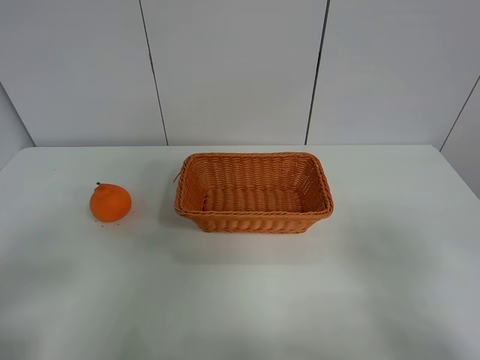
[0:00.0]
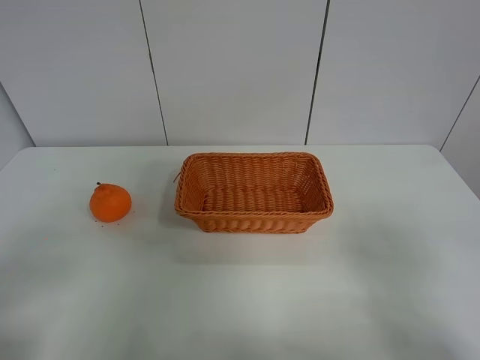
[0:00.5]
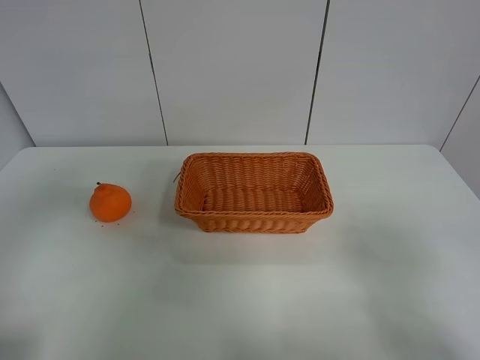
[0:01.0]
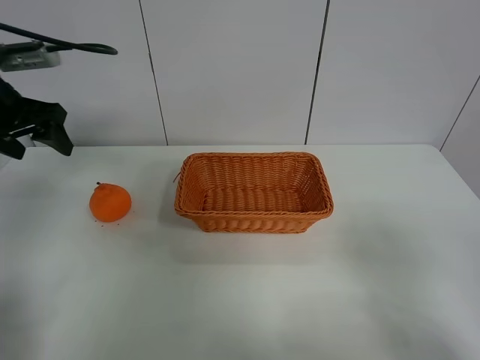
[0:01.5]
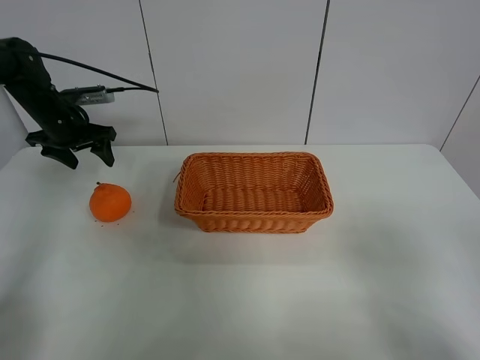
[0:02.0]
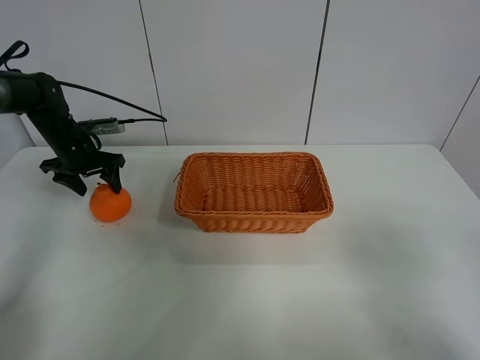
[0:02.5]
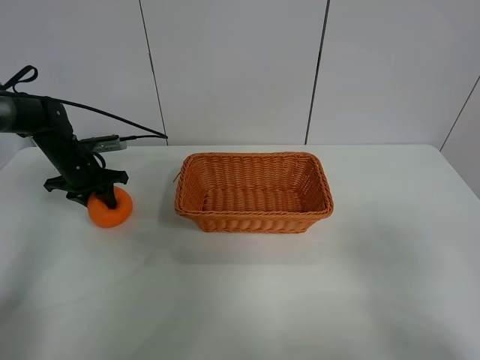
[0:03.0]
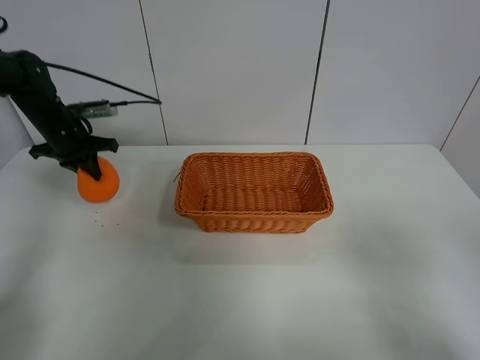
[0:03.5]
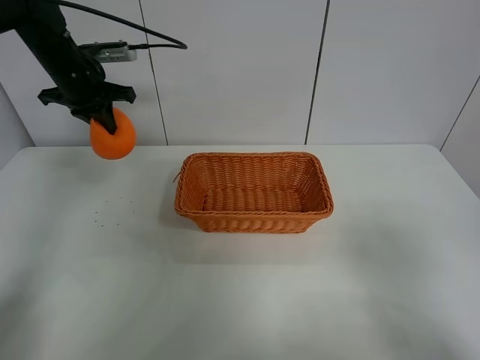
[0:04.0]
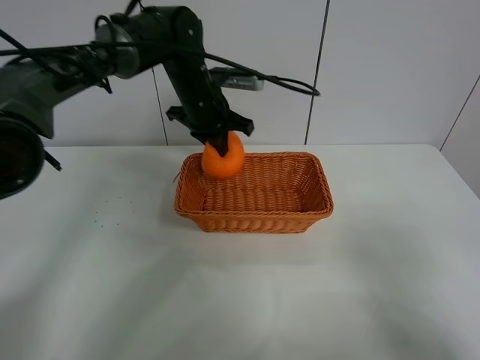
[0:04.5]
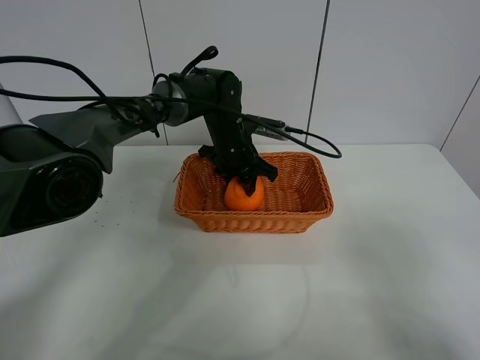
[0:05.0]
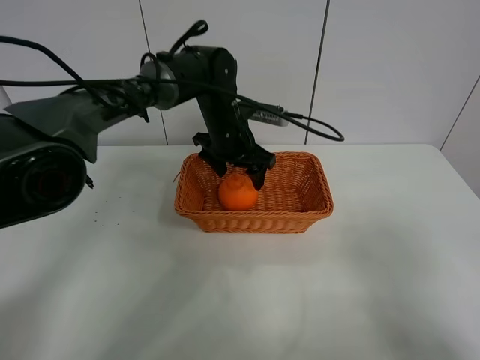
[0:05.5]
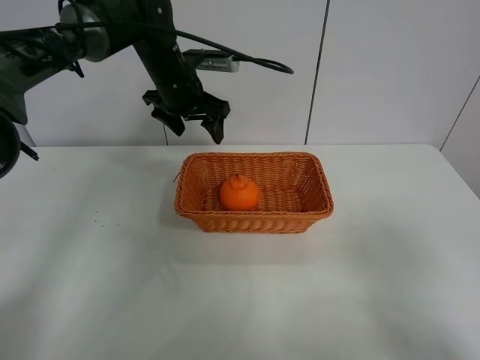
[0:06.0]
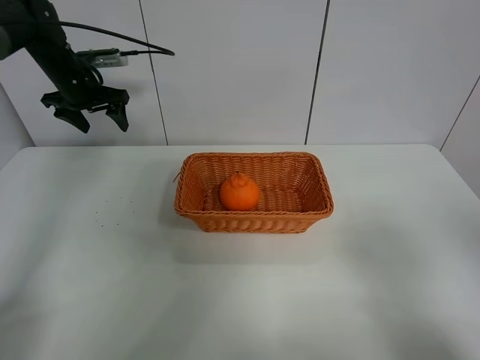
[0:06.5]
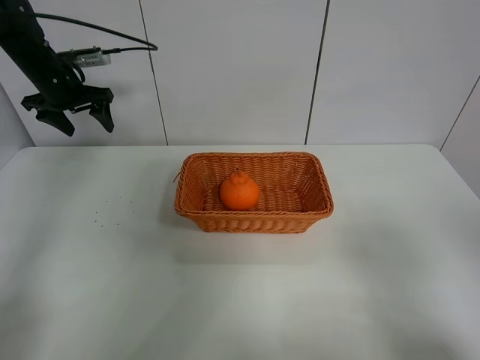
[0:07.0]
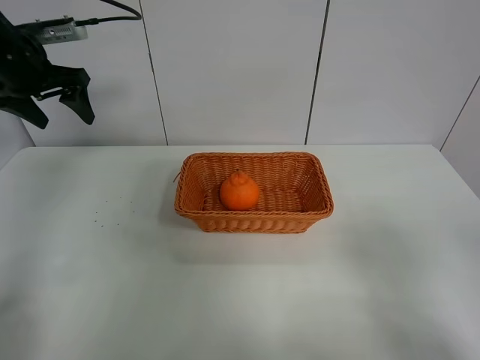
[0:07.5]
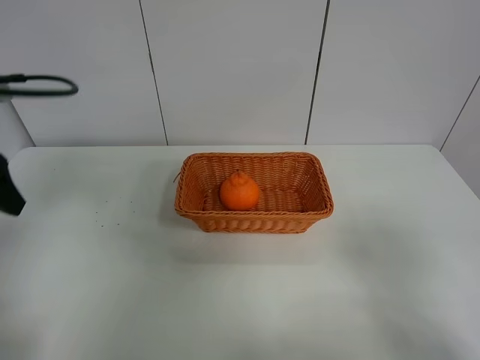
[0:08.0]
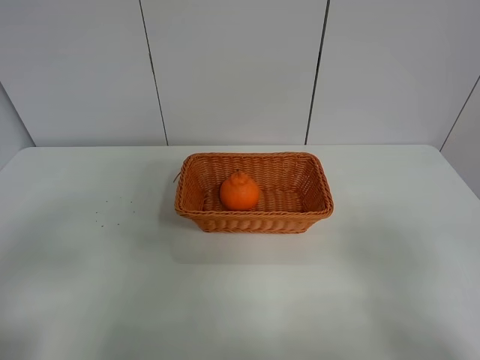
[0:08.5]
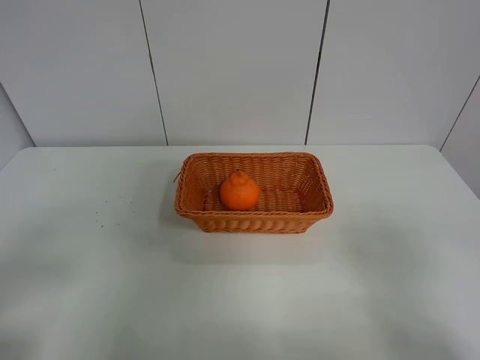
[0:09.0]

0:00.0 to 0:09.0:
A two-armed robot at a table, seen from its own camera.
Task of the whole recording: left gripper grabs oranges and puts them in the basket.
Step, 0:00.0 to 0:03.0: Grasp the orange with left gripper.
Step, 0:03.5 to 0:06.0: Place the orange in the basket with left gripper.
0:00.0 to 0:02.0: The left gripper heads forward, covering approximately 50 cm.
0:02.0 to 0:04.5: The left gripper goes about 25 cm to the right, and closes.
0:04.5 to 0:07.0: The left gripper shifts some 25 cm to the left, and opens up.
0:07.0 to 0:09.0: The left gripper shifts about 50 cm backward.

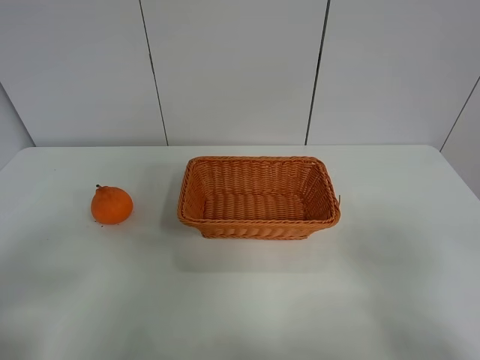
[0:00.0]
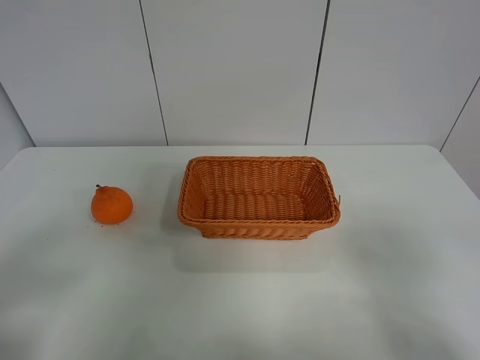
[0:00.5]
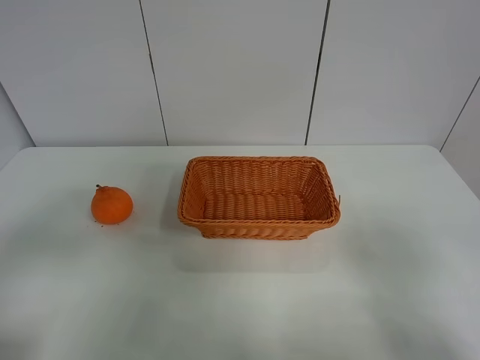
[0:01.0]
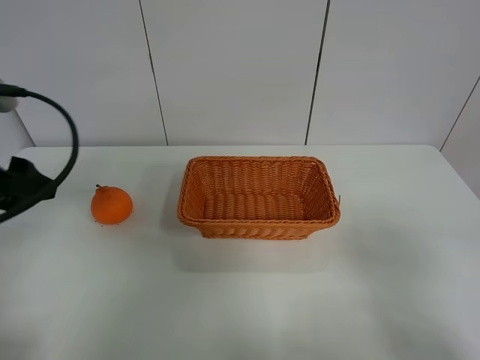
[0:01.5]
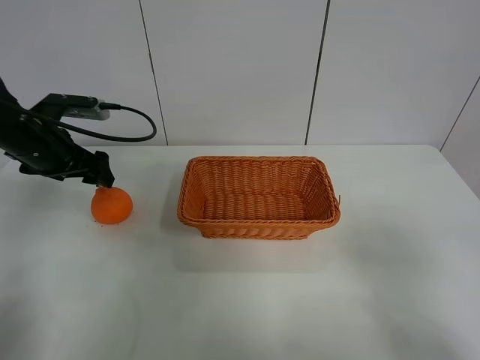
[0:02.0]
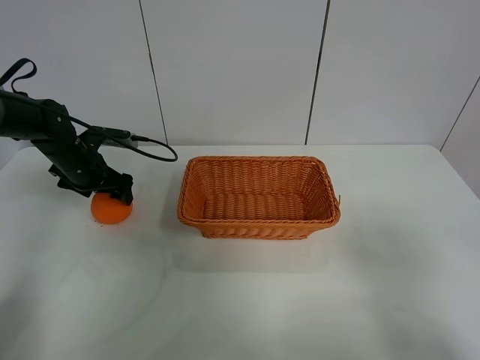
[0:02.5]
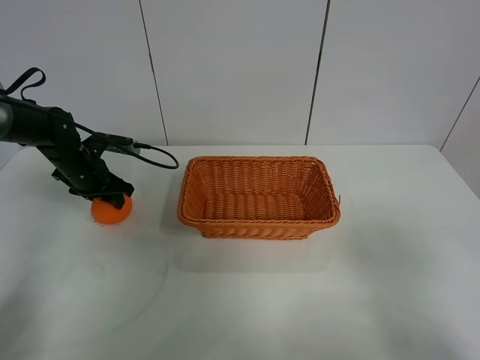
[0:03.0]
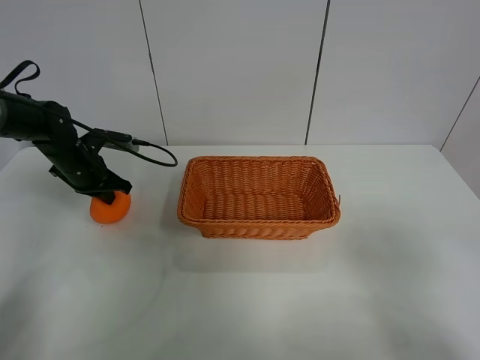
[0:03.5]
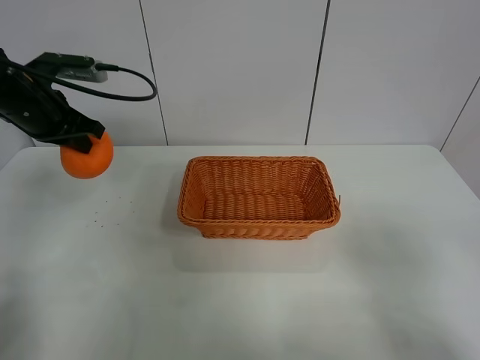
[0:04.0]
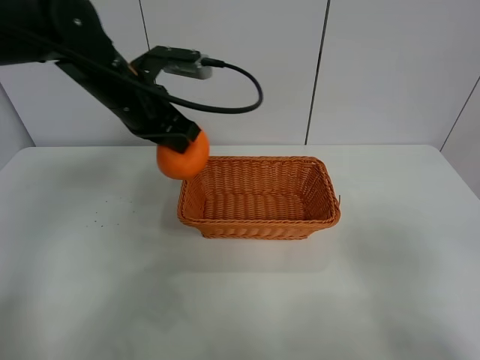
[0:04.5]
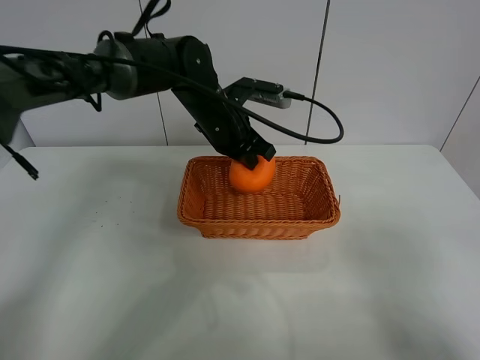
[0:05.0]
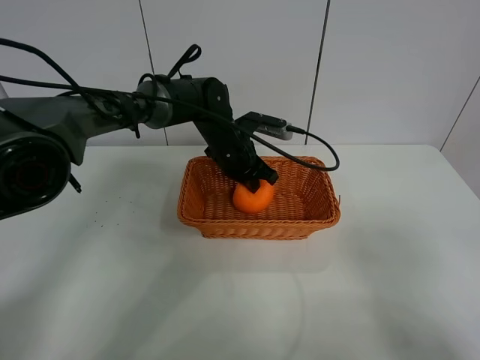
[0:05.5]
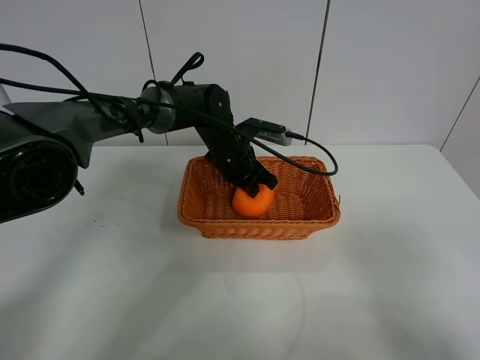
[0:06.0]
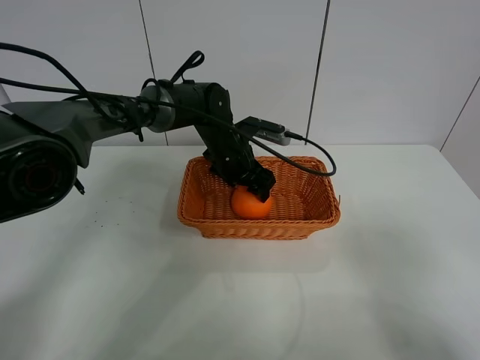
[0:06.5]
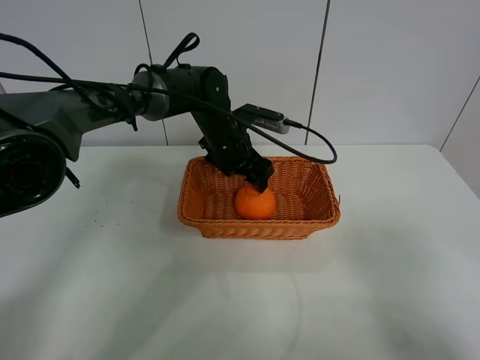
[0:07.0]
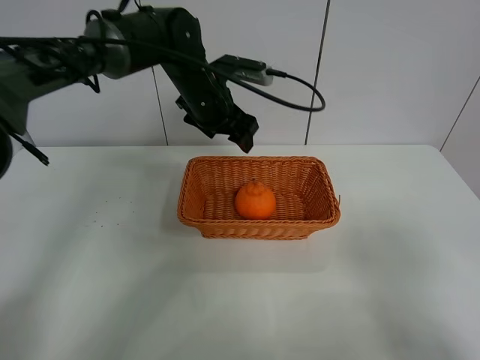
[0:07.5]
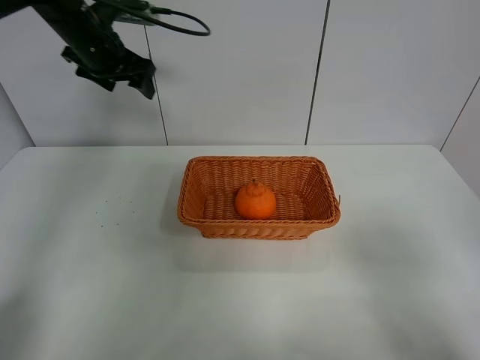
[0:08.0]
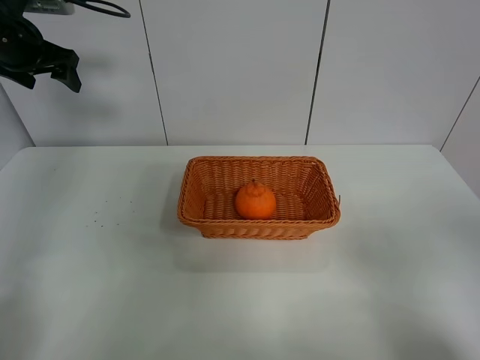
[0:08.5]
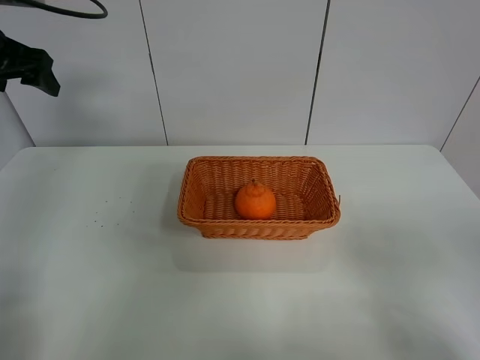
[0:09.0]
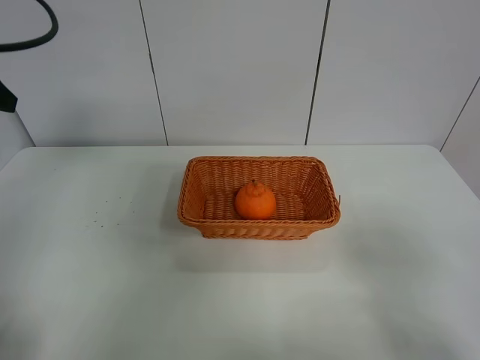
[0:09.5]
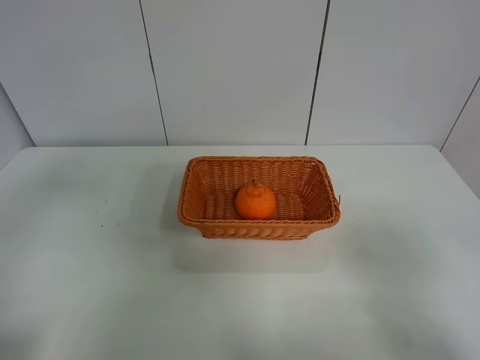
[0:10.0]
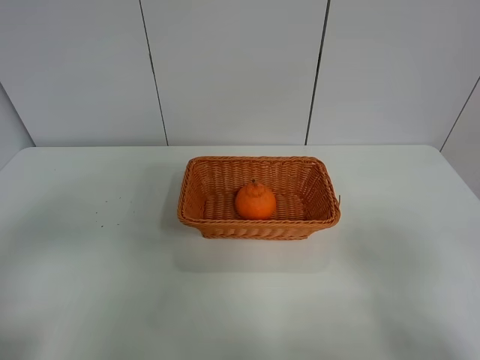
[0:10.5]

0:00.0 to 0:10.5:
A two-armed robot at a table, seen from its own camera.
Task of the whole recording: left gripper grabs oranges and puts them in the basket.
Step, 0:00.0 to 0:03.0: Grasp the orange with left gripper.
Step, 0:03.5 to 0:07.5: Place the orange in the basket with left gripper.
0:00.0 to 0:02.0: The left gripper shifts some 35 cm forward.
0:02.0 to 0:04.0: The left gripper goes about 5 cm upward, and closes its fingers.
0:04.0 to 0:06.5: The left gripper heads to the right and downward, covering some 30 cm, and opens up.
0:06.5 to 0:08.5: The left gripper shifts roughly 35 cm to the left and upward.
0:08.5 to 0:10.5: The left gripper is displaced backward by roughly 40 cm.

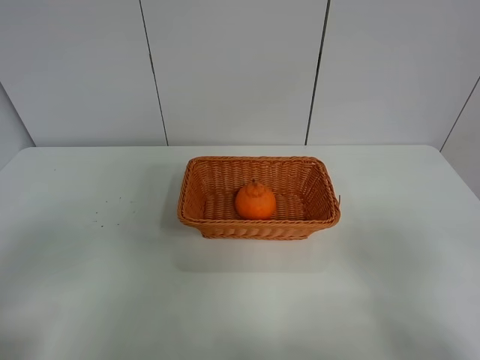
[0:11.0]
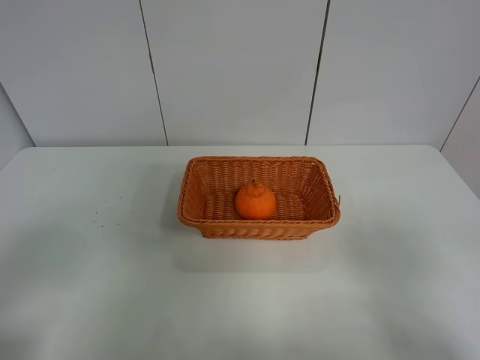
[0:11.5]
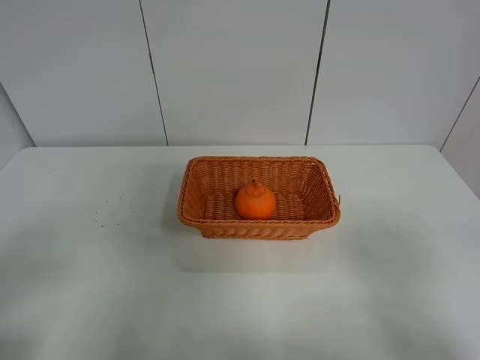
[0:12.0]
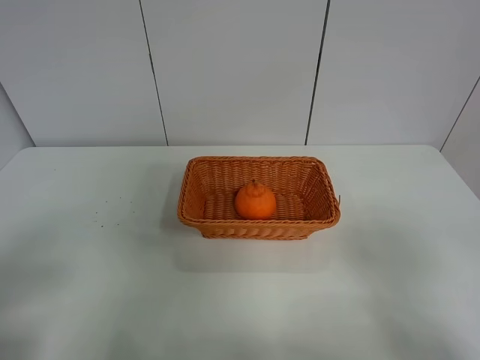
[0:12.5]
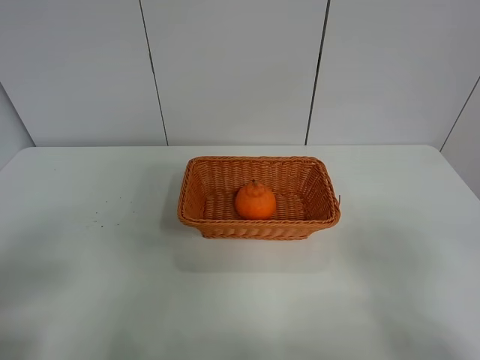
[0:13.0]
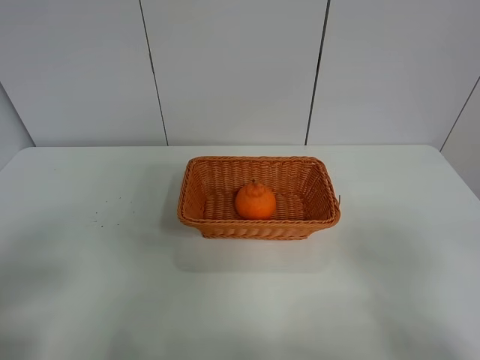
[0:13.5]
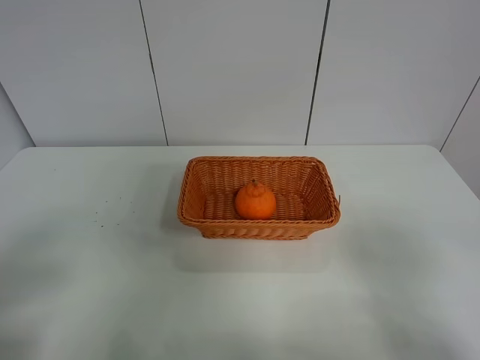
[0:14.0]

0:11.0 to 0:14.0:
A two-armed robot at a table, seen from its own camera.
Task of the whole recording: left gripper grabs oranges and puts them in the basket.
0:12.5 to 0:14.0: Both grippers stay about where they are.

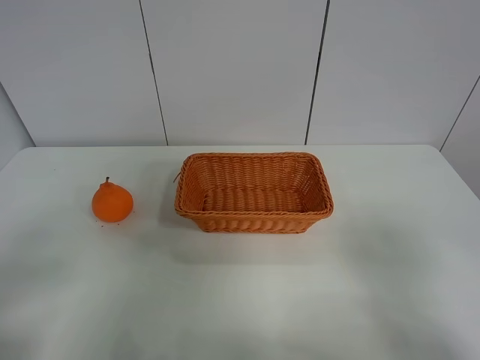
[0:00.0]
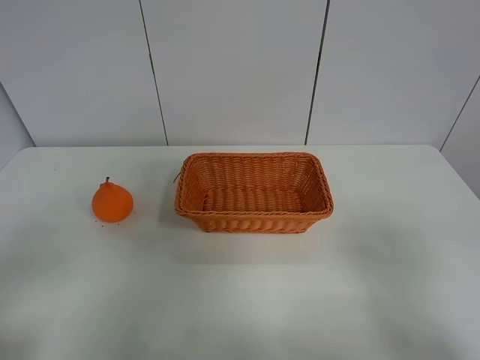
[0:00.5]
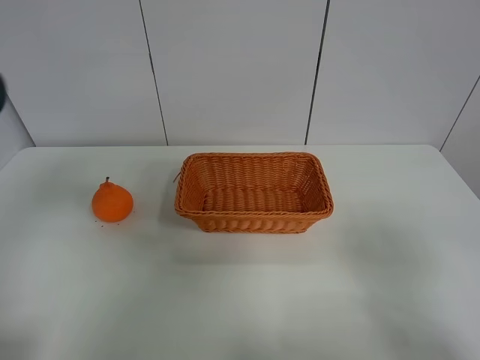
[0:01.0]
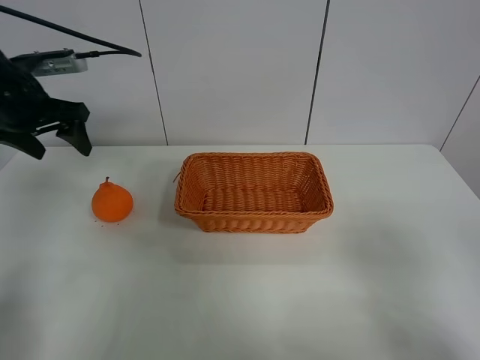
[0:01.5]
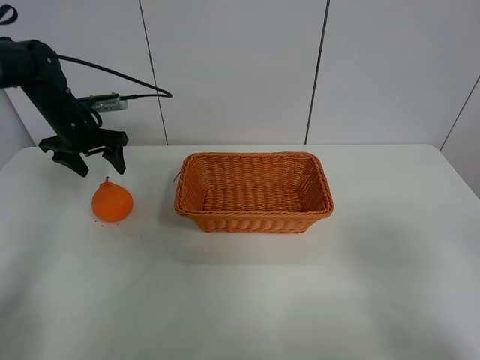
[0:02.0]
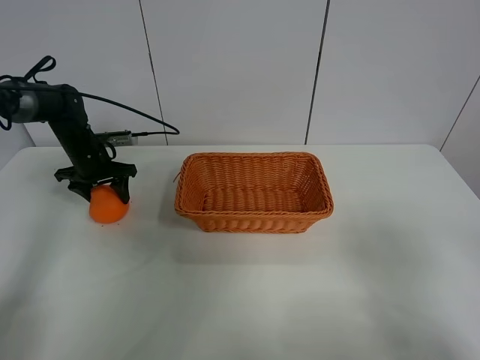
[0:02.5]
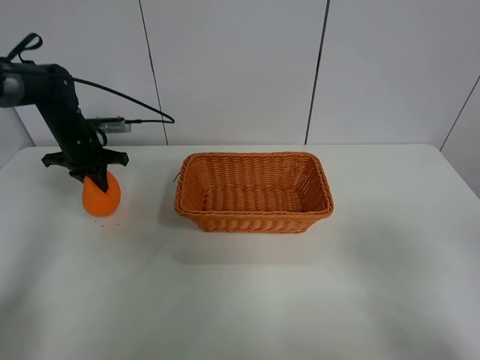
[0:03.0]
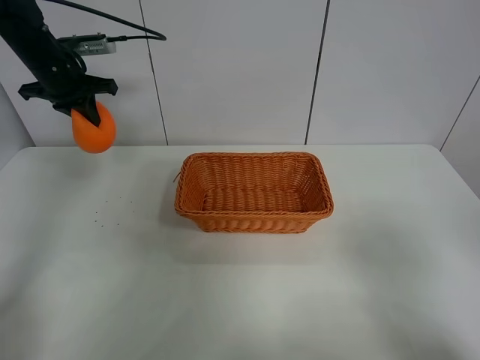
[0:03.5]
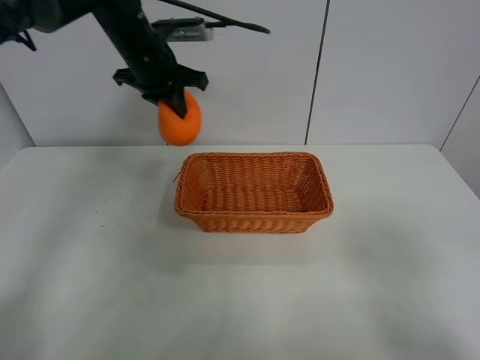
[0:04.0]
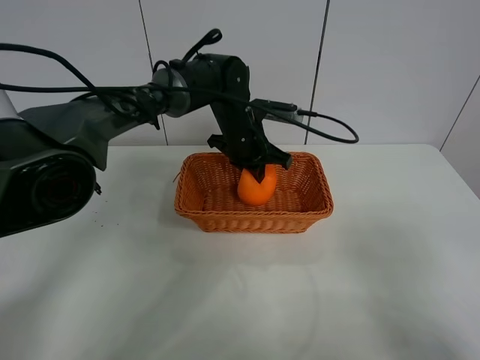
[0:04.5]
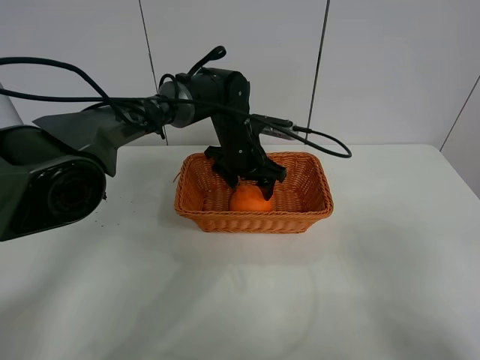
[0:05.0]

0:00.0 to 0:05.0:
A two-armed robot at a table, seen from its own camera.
Task of the whole recording: left gripper grabs oranges and puts them in the basket.
Step, 0:00.0 to 0:02.5: Grasp the orange with left gripper.
0:00.0 to 0:02.5: The left gripper is displaced forward by approximately 50 cm.
0:02.5 to 0:05.0: The left gripper moves to the right, roughly 30 cm, and closes, then reopens.
